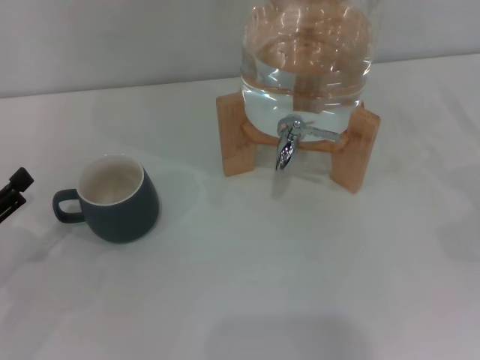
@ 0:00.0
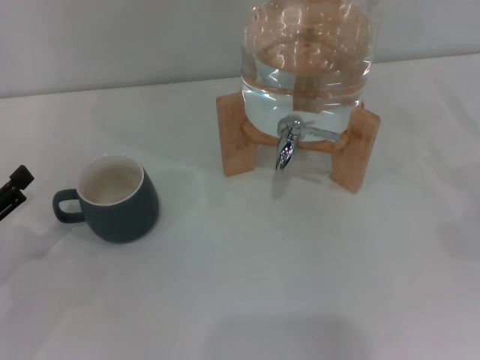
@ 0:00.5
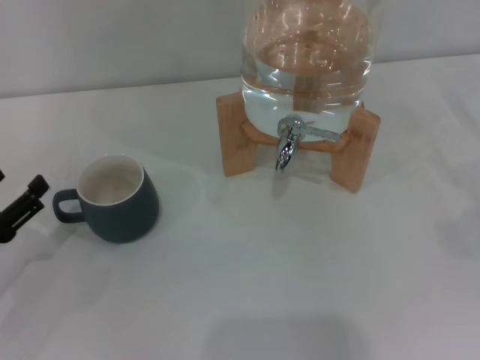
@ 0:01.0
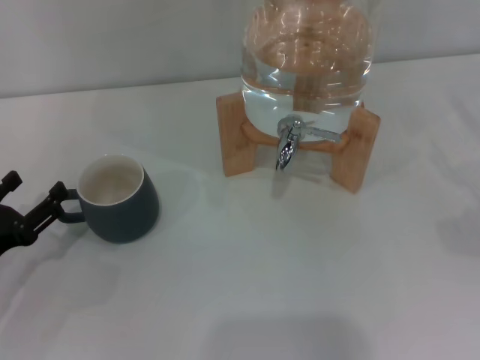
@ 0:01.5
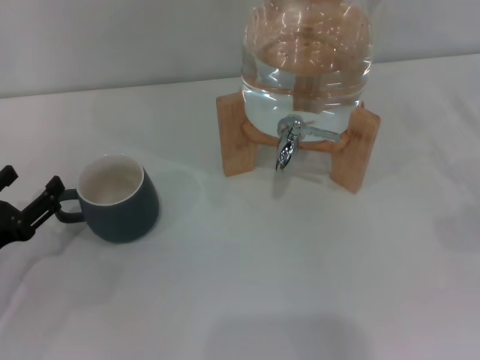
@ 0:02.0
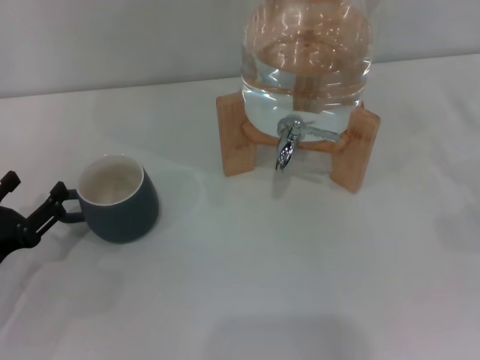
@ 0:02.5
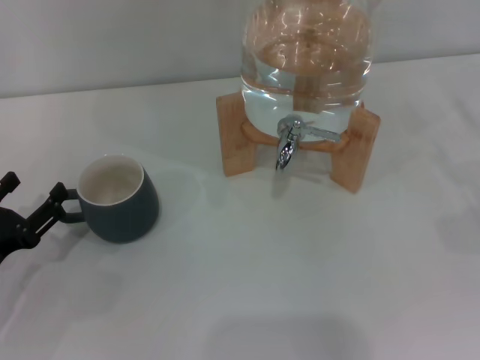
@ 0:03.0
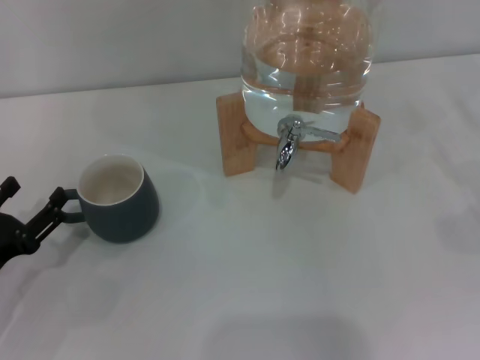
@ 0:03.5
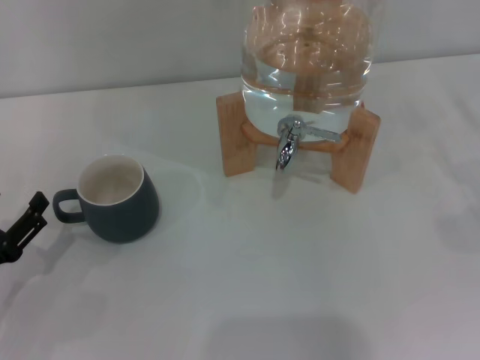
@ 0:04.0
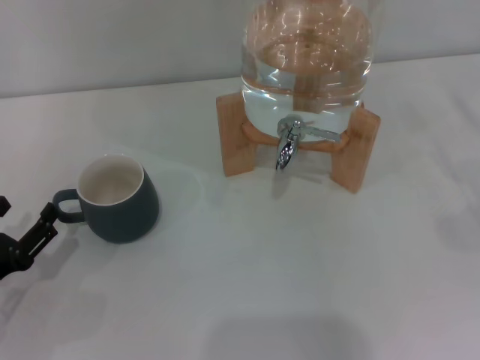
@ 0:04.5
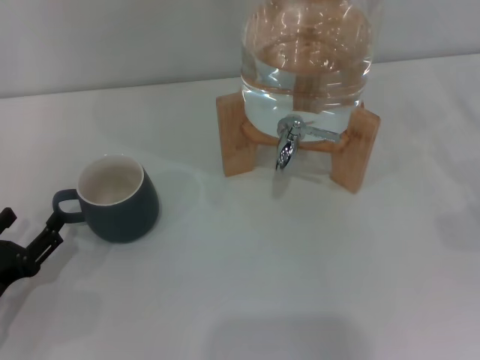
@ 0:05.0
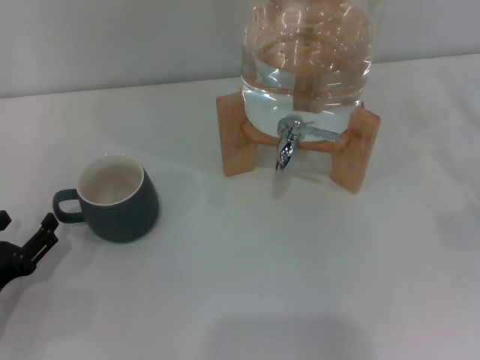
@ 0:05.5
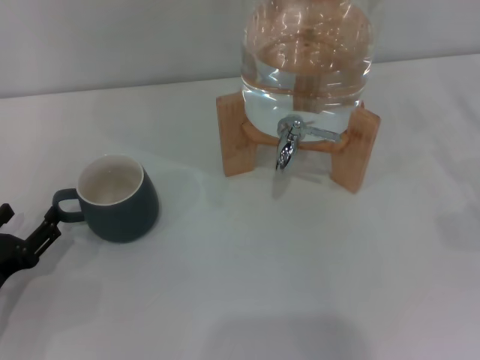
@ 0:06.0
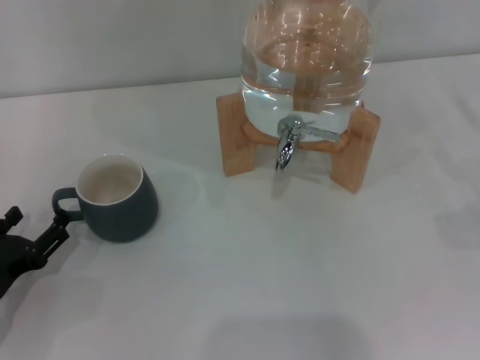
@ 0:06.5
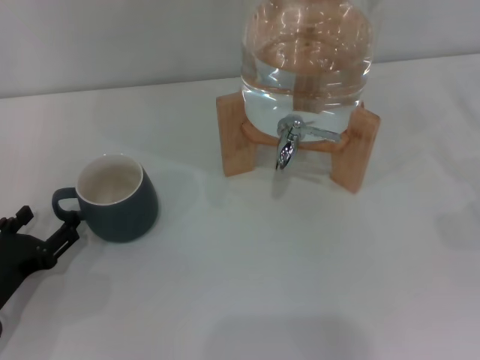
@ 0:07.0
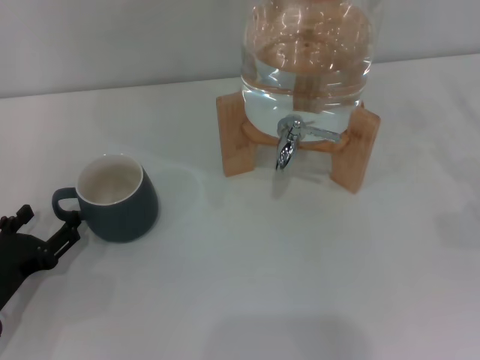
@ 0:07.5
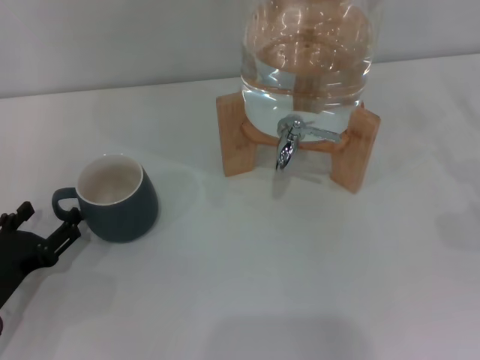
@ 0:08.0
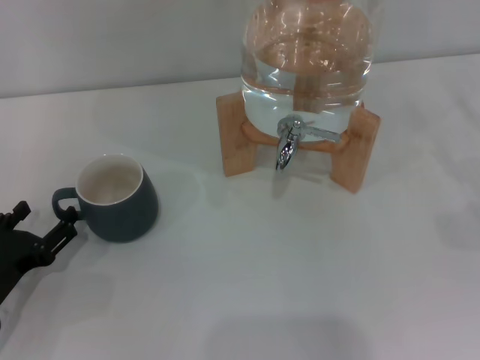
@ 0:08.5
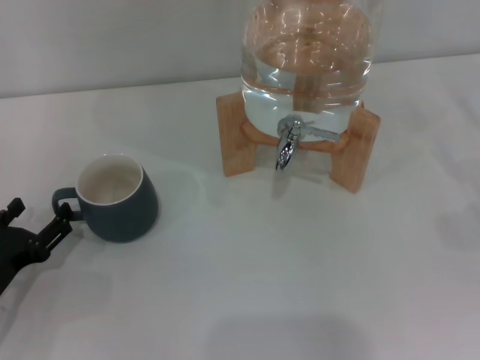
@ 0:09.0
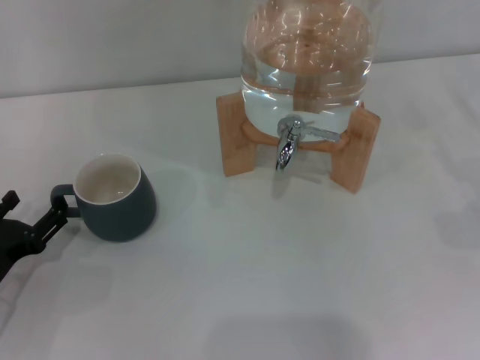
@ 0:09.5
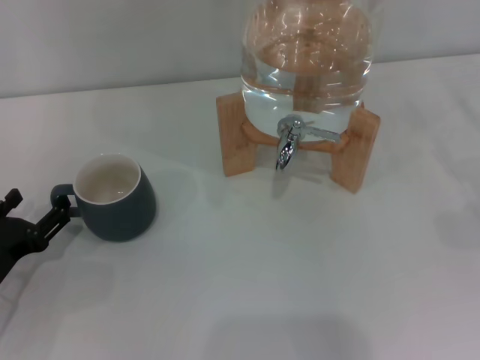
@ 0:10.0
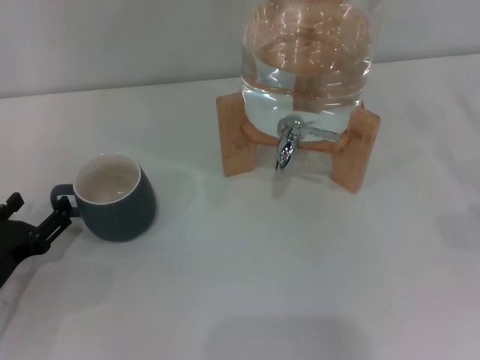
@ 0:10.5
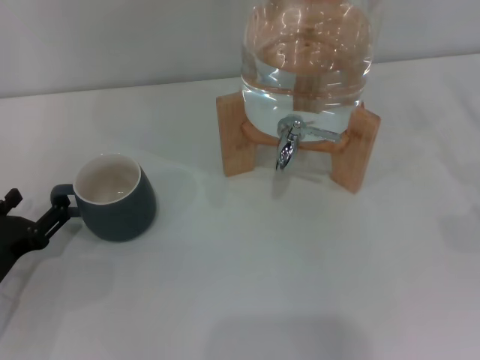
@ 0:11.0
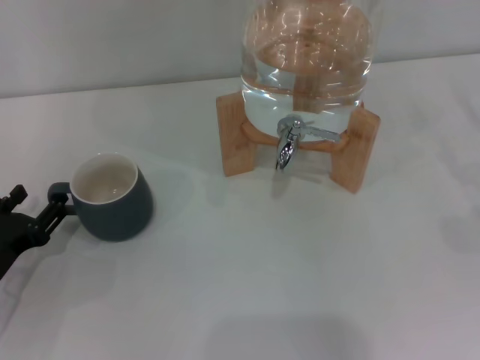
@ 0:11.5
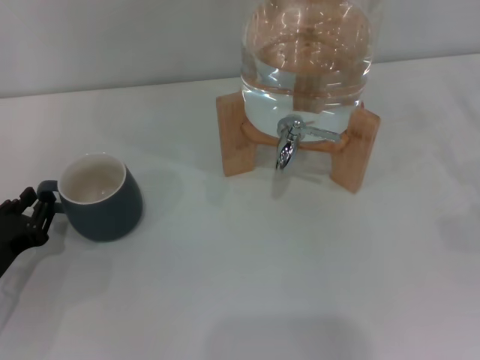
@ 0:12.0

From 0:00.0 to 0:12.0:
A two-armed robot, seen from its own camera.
Task of the whole recording: the left gripper pick up the black cup and place it horizontally under the faucet, the right gripper turn on the faucet to fill the cup, and then turn off the faucet.
From 0:00.0 to 0:04.0: The grippers move only a little.
From 0:04.0 to 0:08.0: There are only small adjustments of the grippers.
From 0:08.0 to 0:10.0: The two grippers keep their place.
From 0:10.0 to 0:12.0: The left gripper closes its fingers.

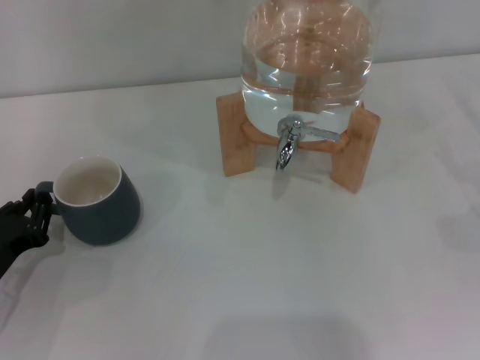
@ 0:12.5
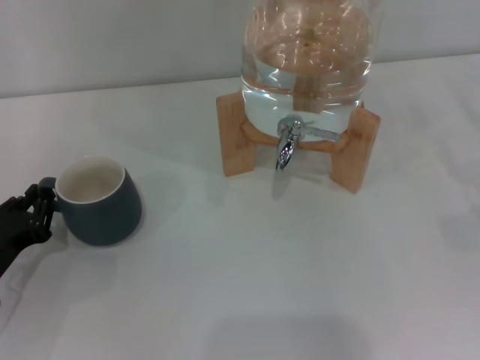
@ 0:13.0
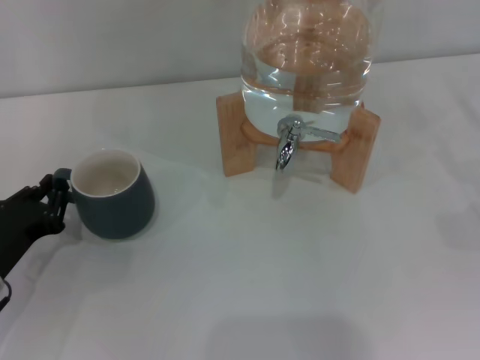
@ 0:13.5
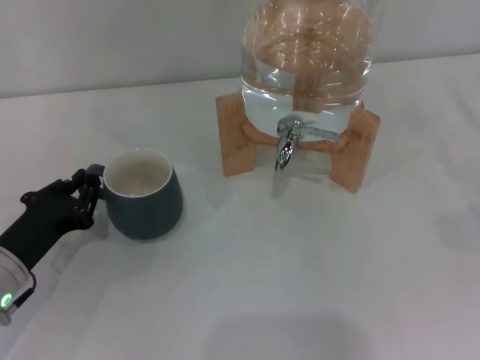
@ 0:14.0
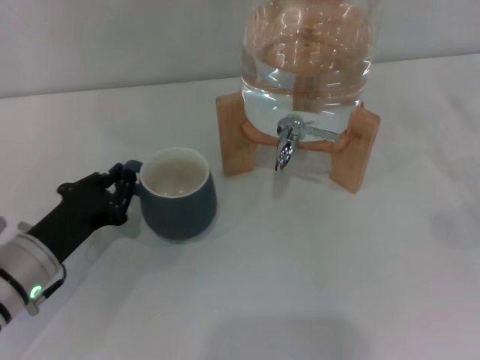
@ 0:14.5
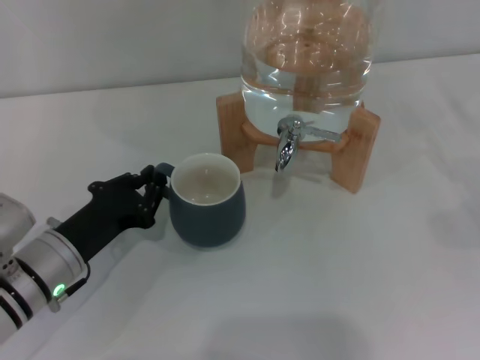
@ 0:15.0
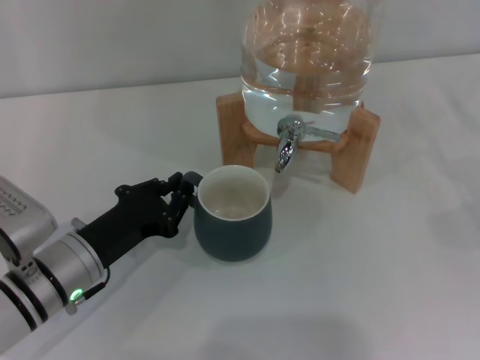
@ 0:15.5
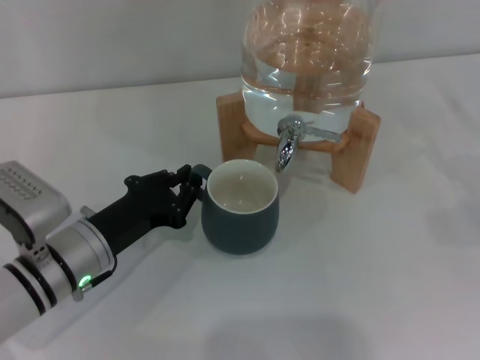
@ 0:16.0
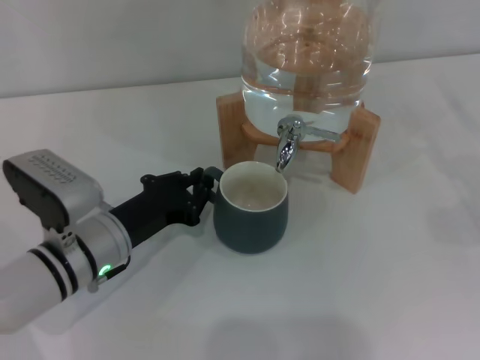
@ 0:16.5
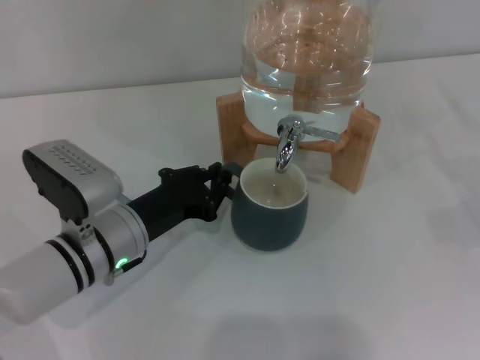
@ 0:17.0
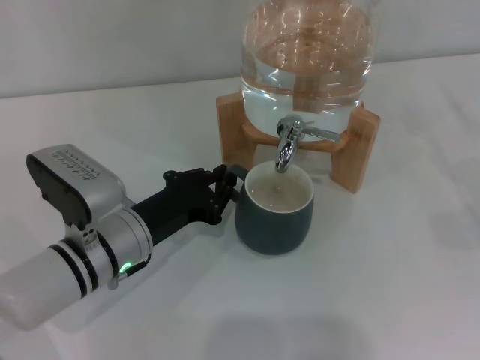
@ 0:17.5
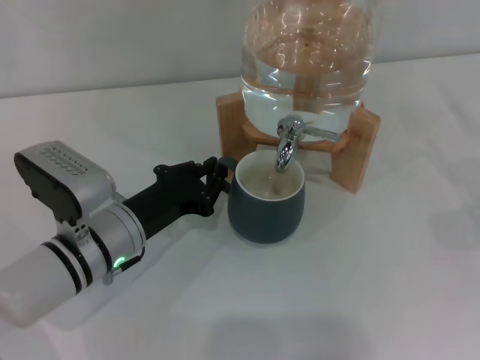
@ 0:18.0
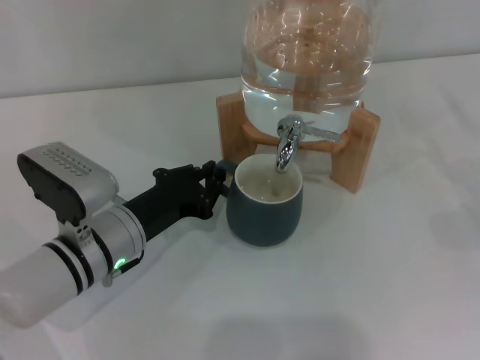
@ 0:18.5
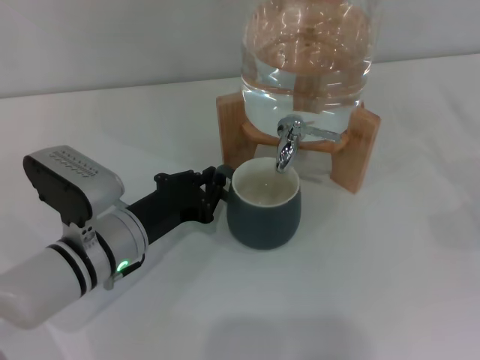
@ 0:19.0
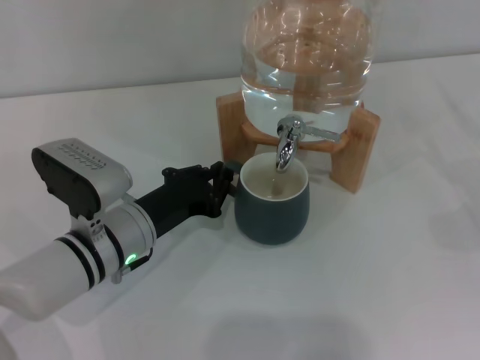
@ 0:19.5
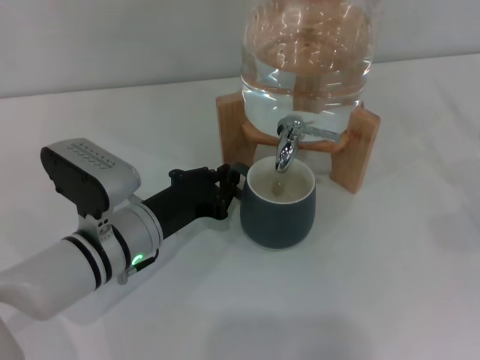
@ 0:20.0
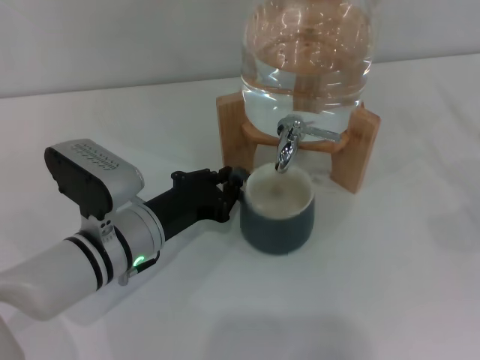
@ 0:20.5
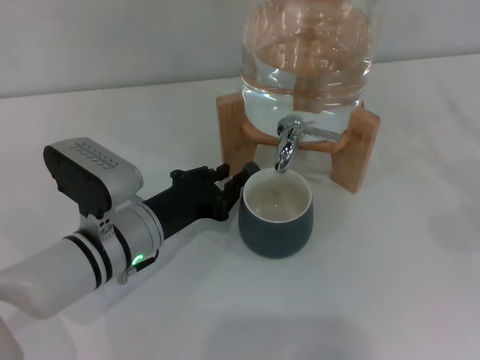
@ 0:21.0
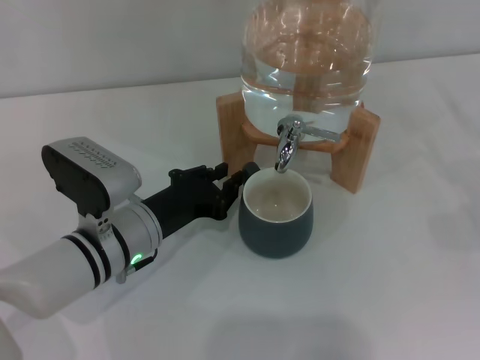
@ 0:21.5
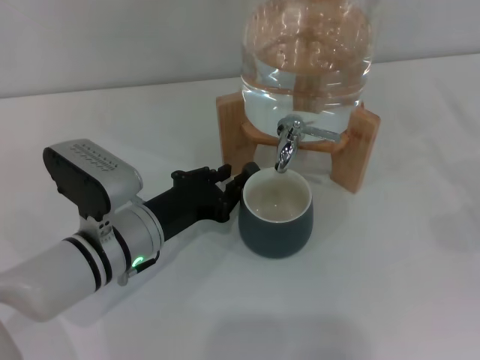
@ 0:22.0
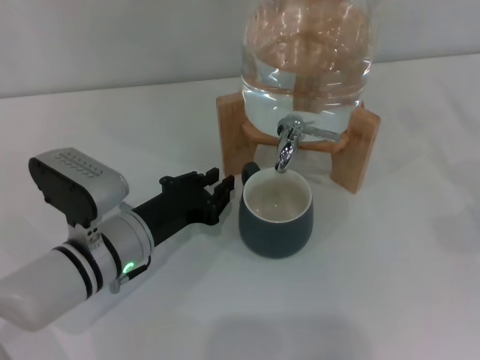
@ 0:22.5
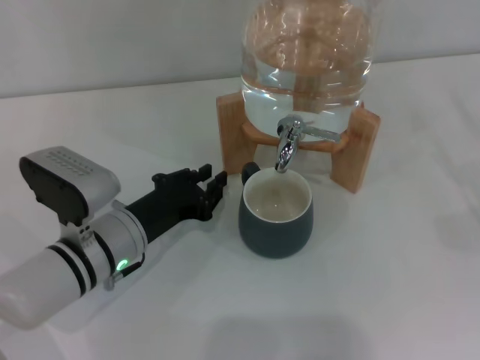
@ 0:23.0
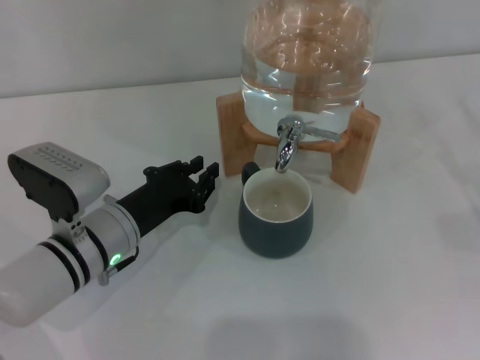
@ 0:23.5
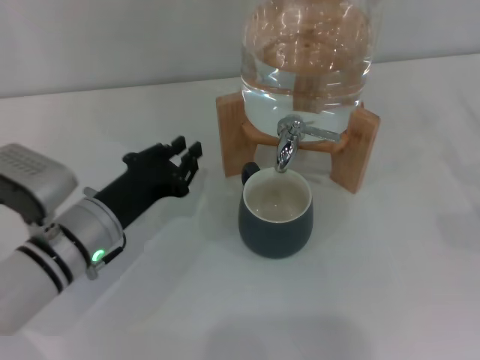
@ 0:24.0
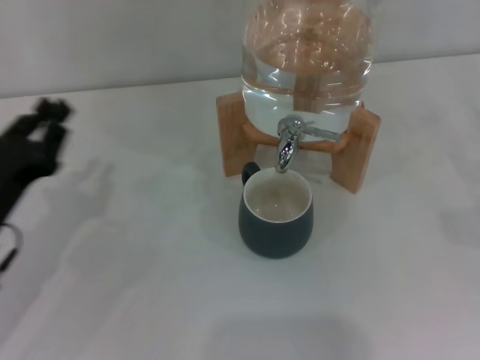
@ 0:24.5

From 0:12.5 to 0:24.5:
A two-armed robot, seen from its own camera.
Task of the whole recording: the left gripper pick up the black cup and place it horizontally under the faucet, the right gripper turn on the faucet to fill the cup, and then turn off the faucet.
Step, from 0:12.5 to 0:22.0: Move the cup beneath the water dispenser nozzle with the left gripper.
From 0:12.5 to 0:14.5: The left gripper moves to the right, some 5 cm.
From 0:14.5 to 0:16.5: The left gripper moves to the right, some 5 cm.
From 0:16.5 to 0:20.5: The grippers move only a little.
From 0:20.5 to 0:22.5: Both grippers stay put.
From 0:22.5 to 0:24.5: The left gripper goes about 15 cm to the left.

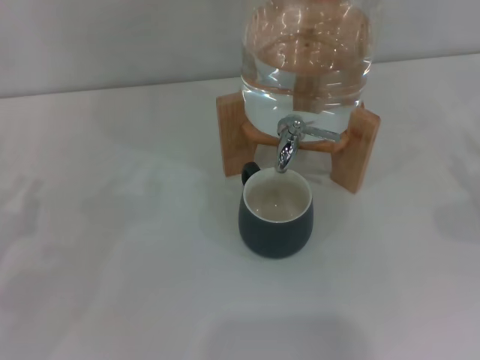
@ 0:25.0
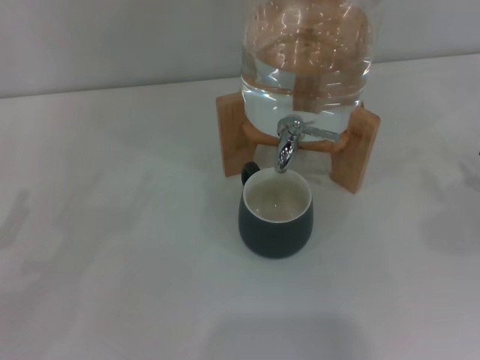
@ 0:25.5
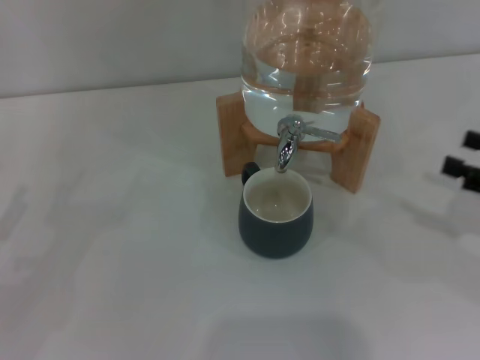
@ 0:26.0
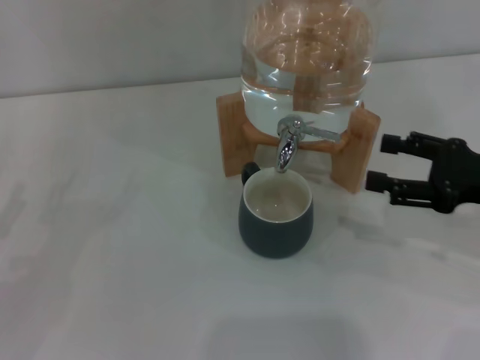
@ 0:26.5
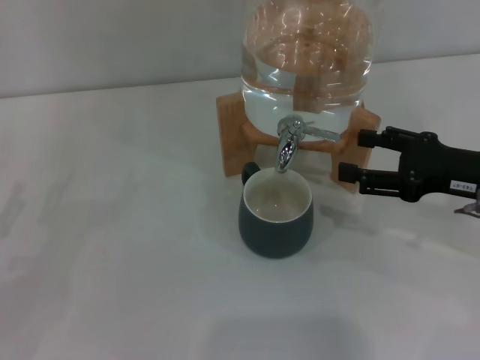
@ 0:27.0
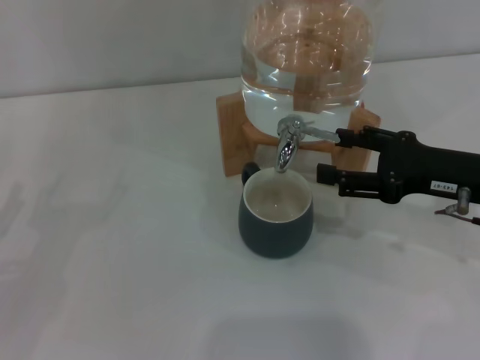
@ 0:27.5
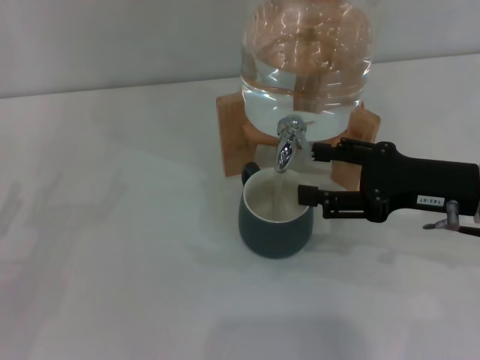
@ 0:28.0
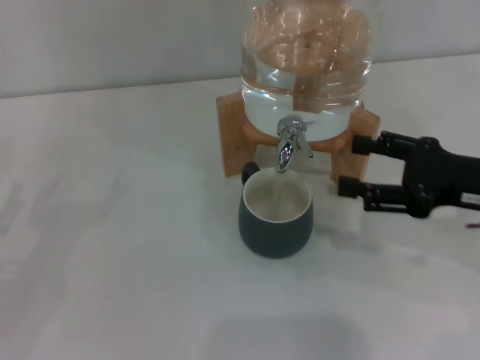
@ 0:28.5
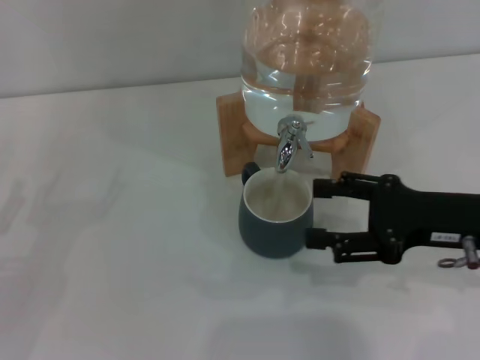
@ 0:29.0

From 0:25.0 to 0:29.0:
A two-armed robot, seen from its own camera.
Task of the whole recording: the left gripper pick up the black cup and place it horizontally under the faucet, the right gripper turn on the faucet to fill the cup, and then turn off the faucet.
Step, from 0:25.0 to 0:28.0: Open the dispenser valve and fill the cup with water with the right gripper.
From 0:25.0 to 0:27.0: The right gripper shifts approximately 15 cm to the left and upward.
From 0:27.0 to 0:29.0: There are only small adjustments of the grippers.
